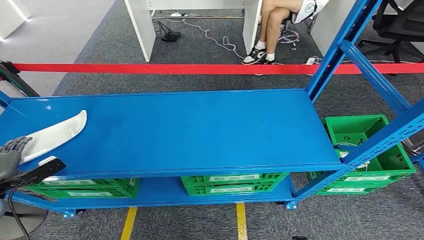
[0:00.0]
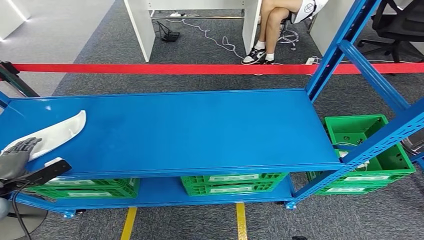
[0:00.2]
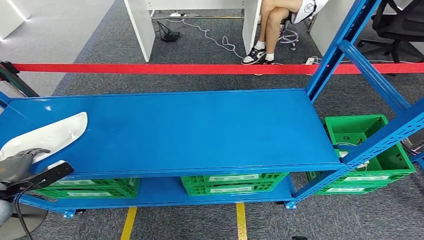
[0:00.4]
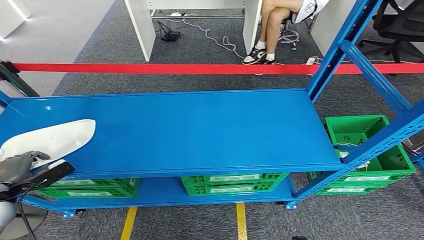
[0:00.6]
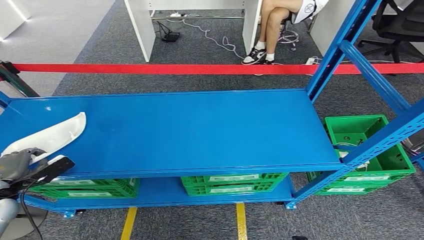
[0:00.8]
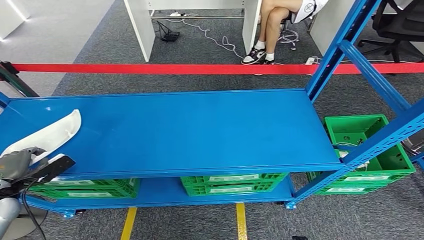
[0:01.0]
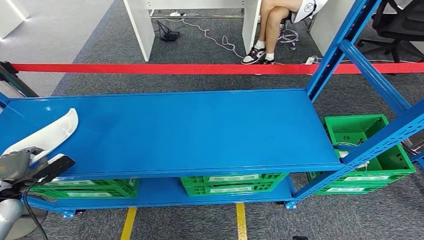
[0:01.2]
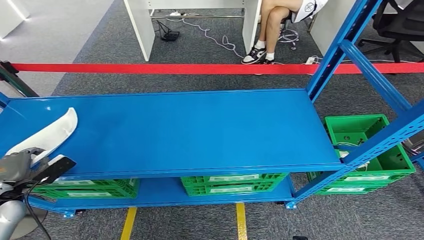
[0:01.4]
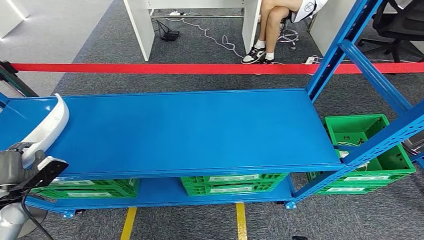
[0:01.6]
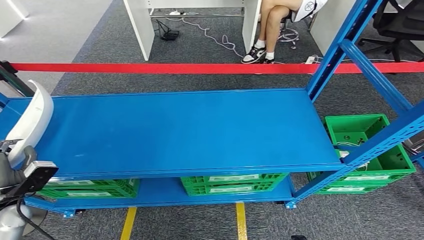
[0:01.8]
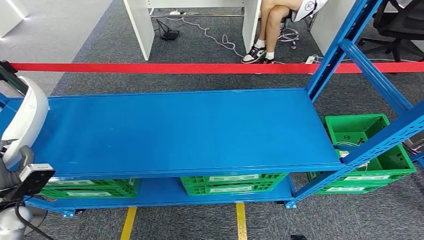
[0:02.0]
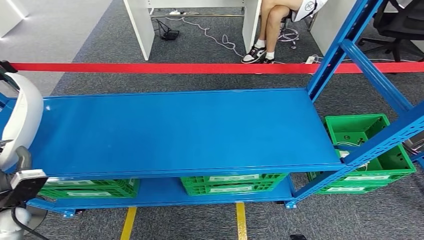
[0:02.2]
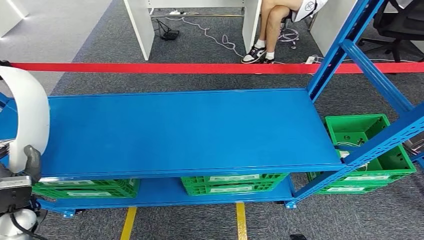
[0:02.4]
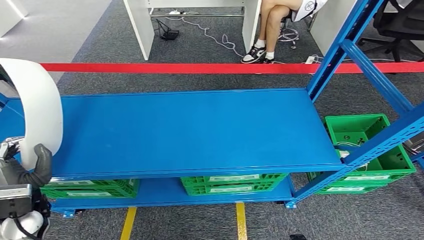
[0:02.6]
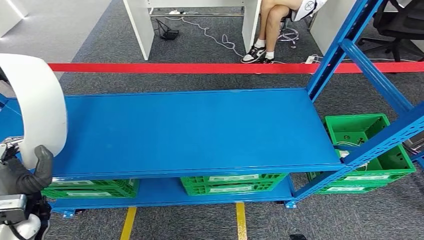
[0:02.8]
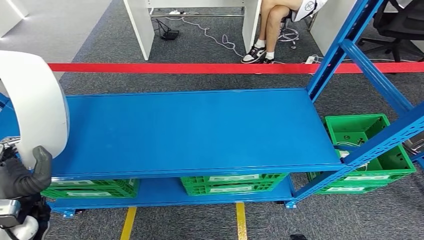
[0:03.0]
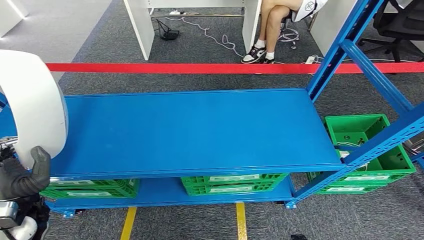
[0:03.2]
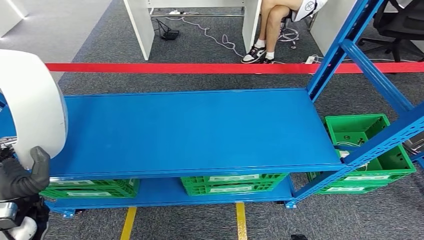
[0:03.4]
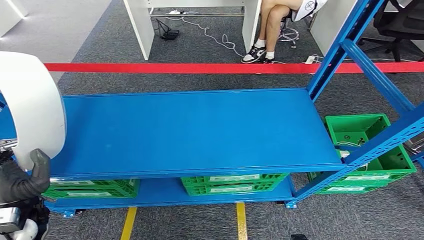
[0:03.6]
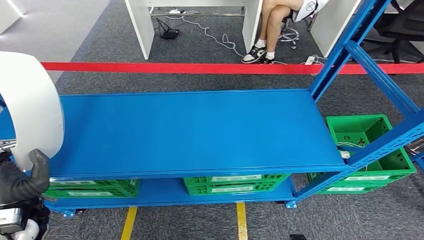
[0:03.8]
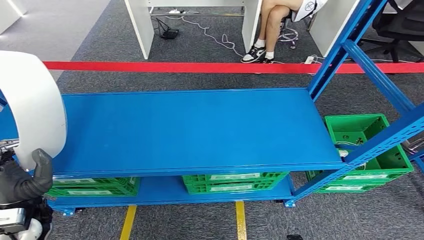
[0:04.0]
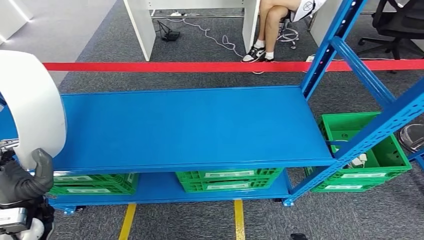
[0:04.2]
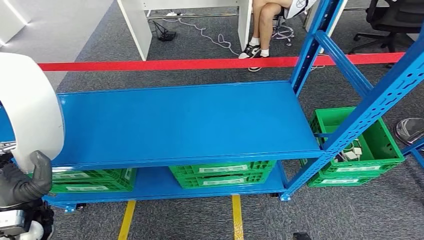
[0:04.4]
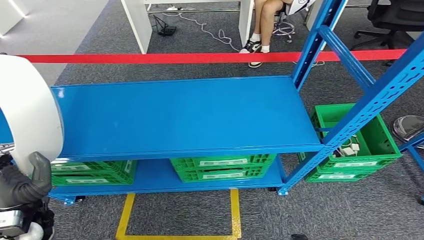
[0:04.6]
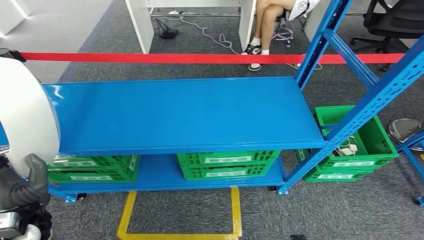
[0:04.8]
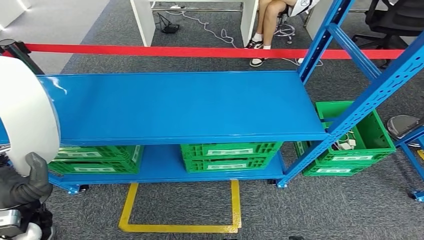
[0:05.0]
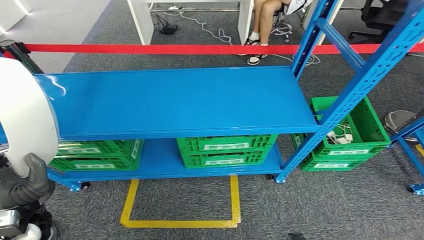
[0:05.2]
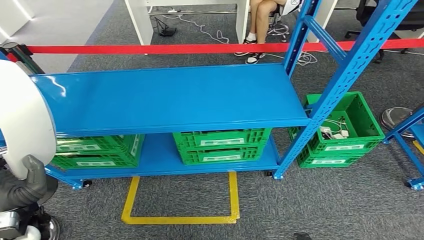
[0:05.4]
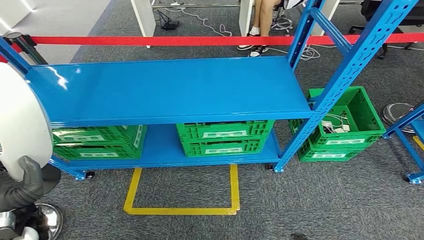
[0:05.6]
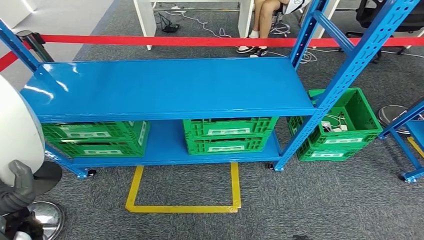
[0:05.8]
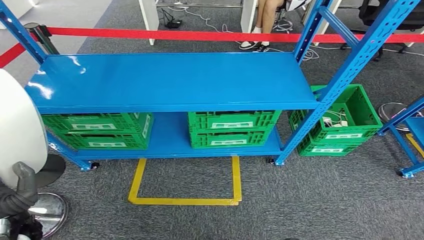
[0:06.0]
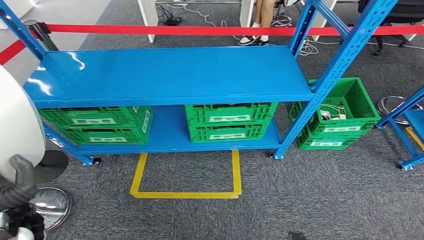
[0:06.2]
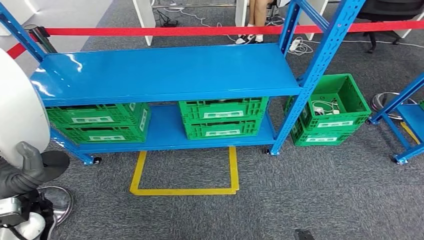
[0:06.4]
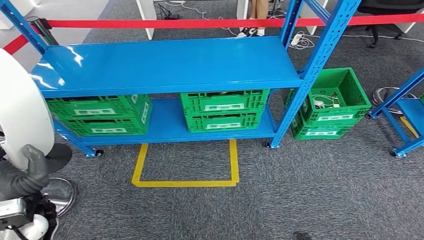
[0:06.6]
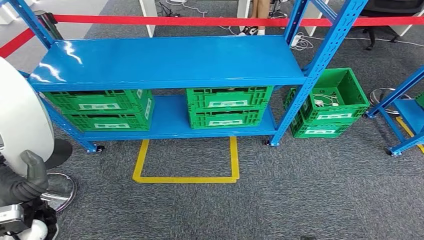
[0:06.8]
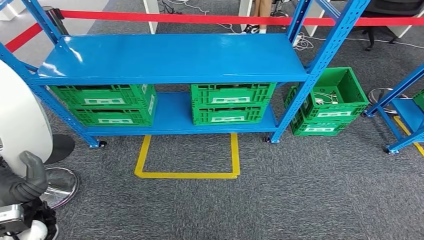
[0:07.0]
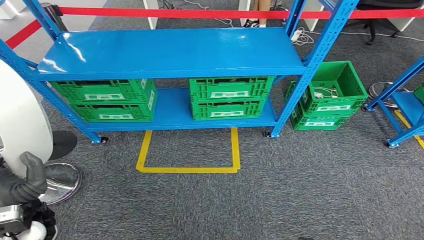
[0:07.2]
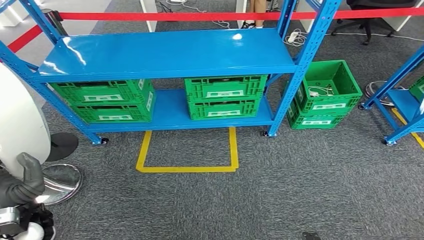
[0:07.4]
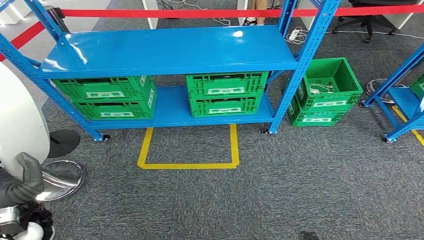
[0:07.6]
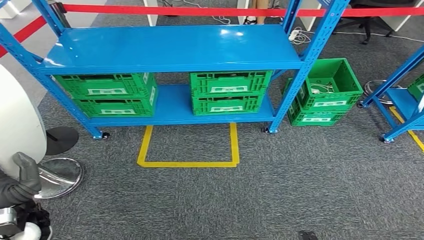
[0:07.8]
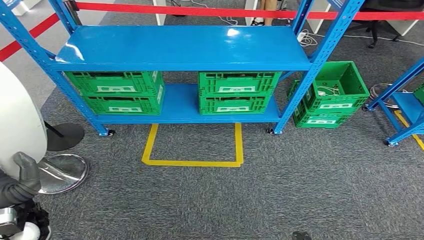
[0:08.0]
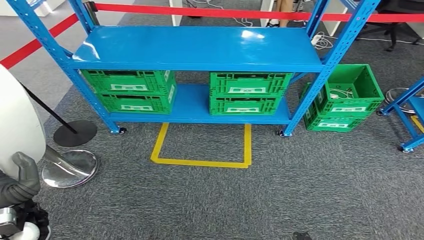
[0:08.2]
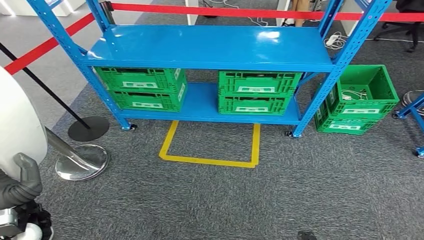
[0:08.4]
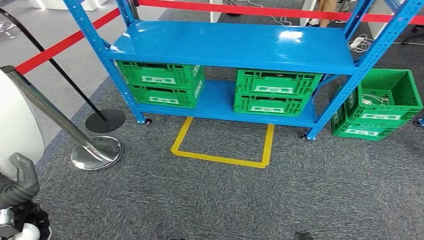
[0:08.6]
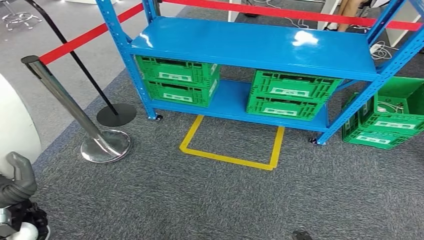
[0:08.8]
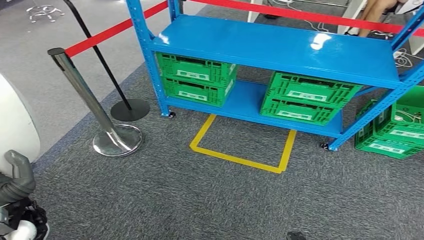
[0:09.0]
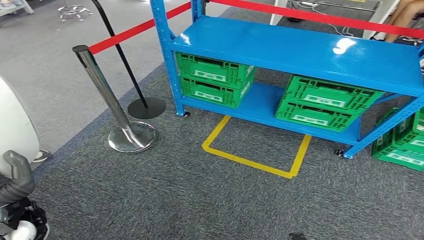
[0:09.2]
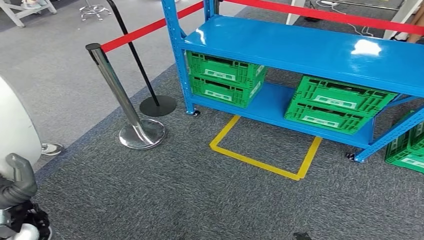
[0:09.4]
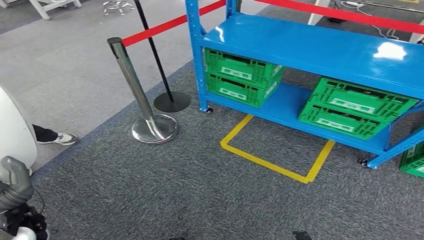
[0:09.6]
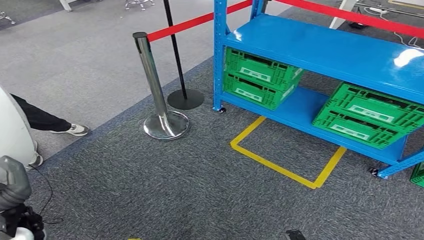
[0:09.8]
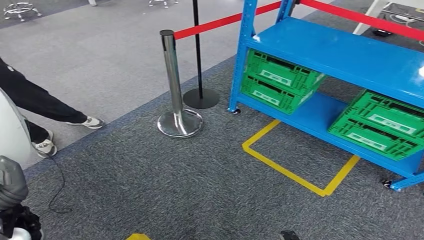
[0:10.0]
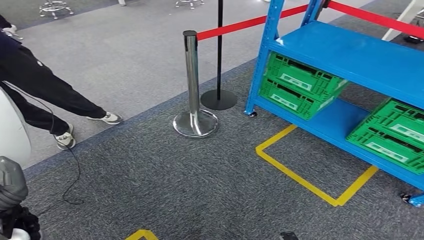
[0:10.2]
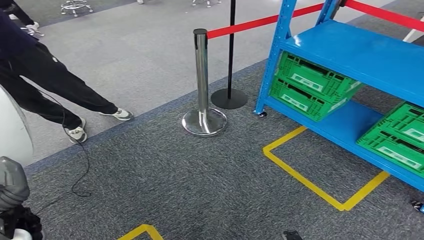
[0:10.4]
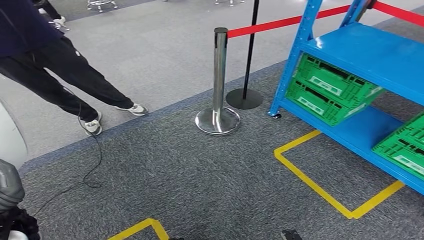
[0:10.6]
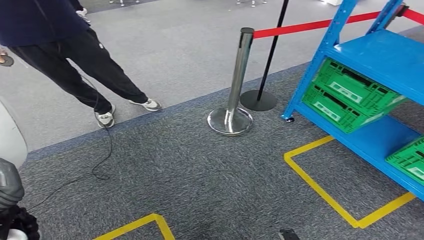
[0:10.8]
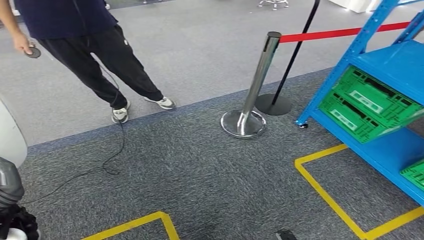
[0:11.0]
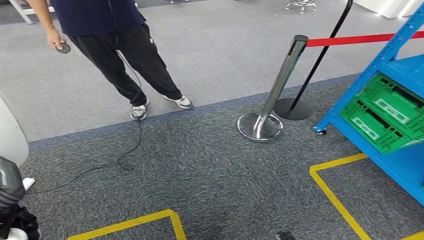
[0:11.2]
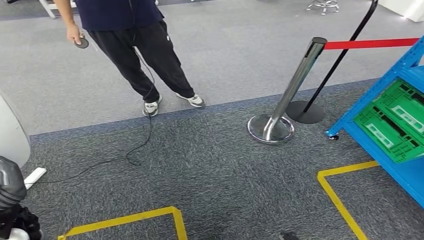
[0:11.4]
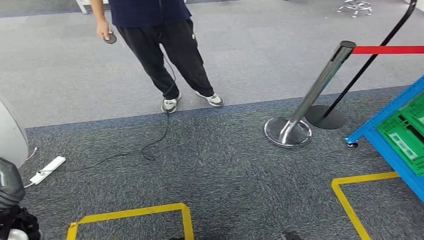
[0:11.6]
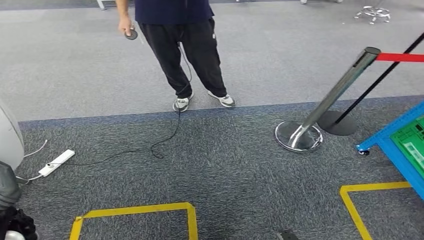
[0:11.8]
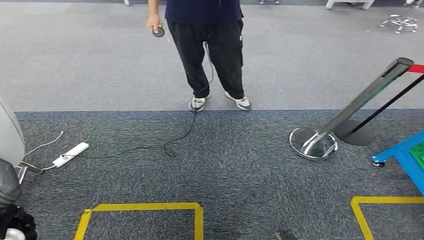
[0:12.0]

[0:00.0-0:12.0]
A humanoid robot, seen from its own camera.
Step, 0:00.0 to 0:04.8: Pick up the small parts from the shelf.
0:01.6 to 0:03.0: The left hand moves to the right and upward, roughly 15 cm.

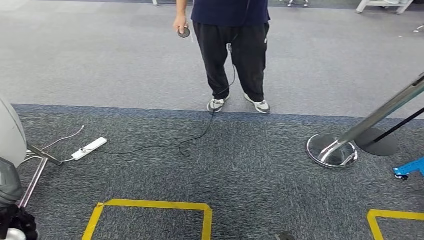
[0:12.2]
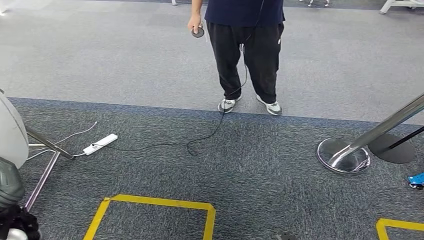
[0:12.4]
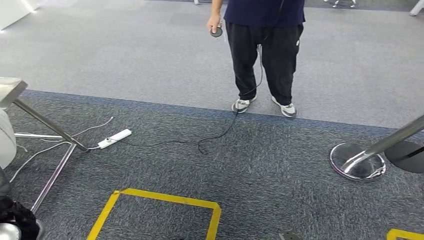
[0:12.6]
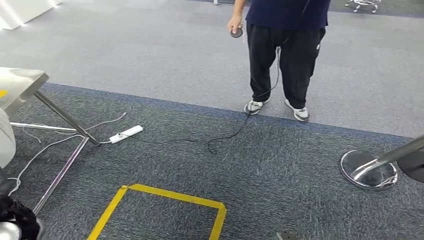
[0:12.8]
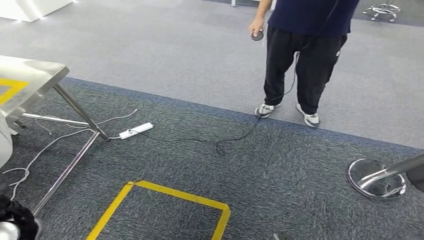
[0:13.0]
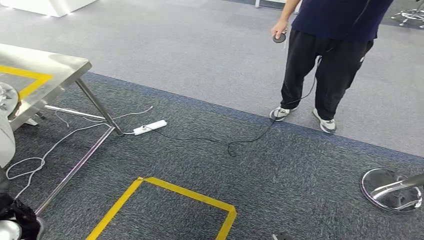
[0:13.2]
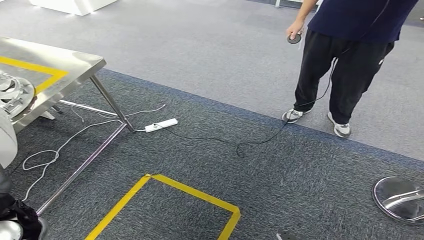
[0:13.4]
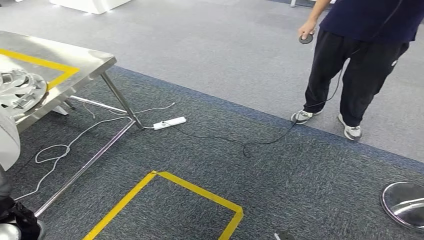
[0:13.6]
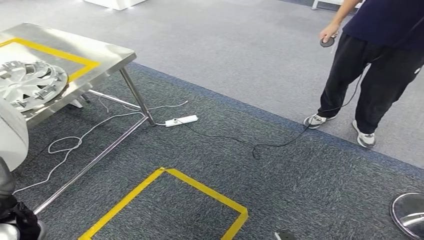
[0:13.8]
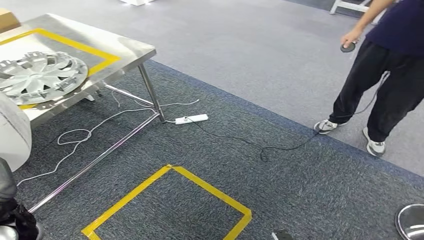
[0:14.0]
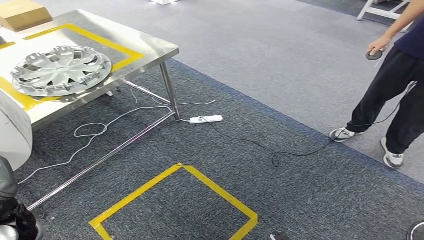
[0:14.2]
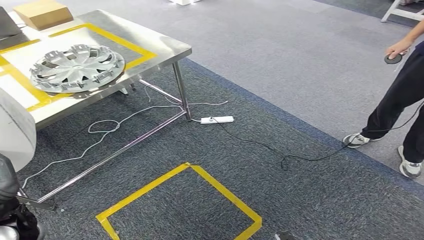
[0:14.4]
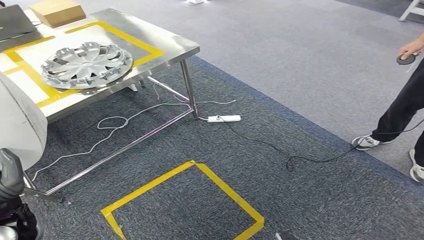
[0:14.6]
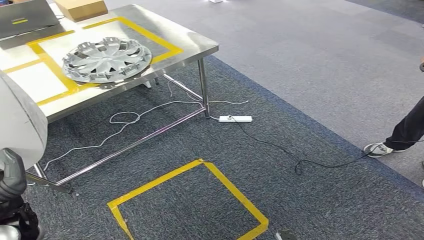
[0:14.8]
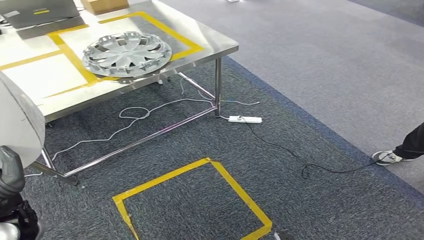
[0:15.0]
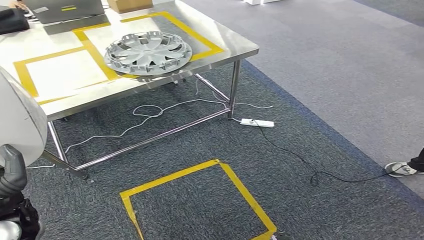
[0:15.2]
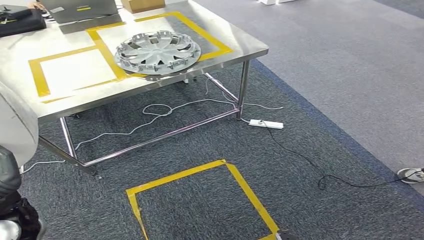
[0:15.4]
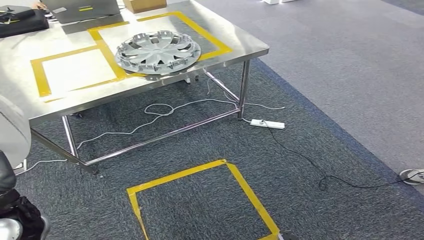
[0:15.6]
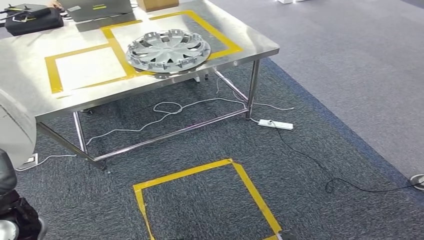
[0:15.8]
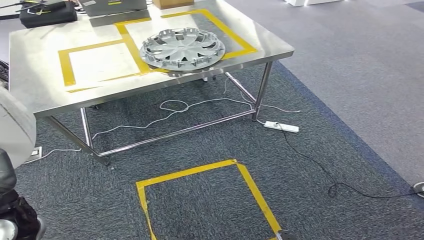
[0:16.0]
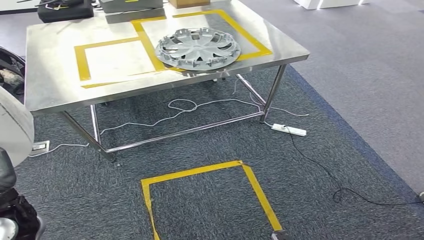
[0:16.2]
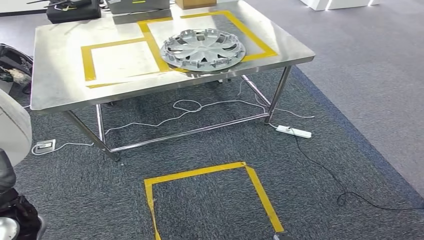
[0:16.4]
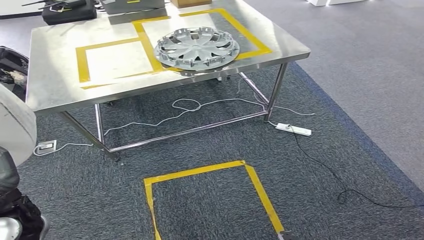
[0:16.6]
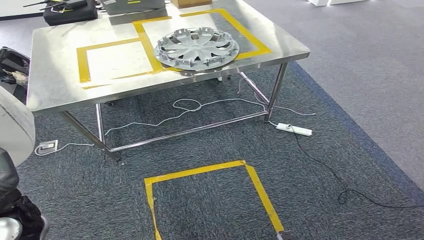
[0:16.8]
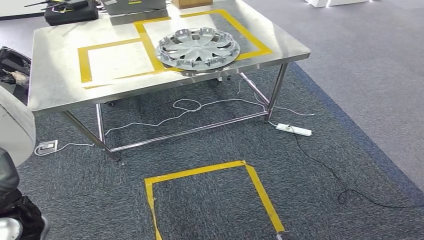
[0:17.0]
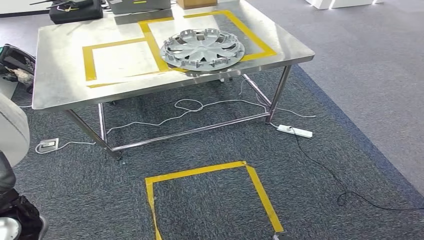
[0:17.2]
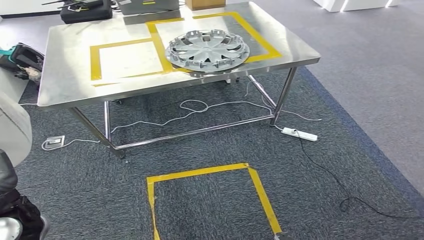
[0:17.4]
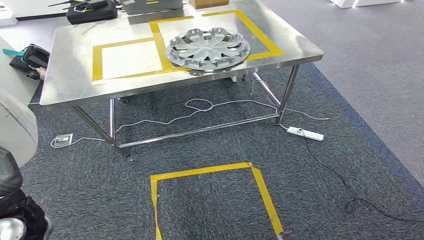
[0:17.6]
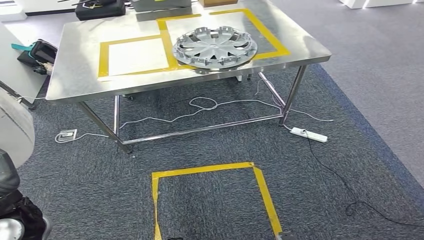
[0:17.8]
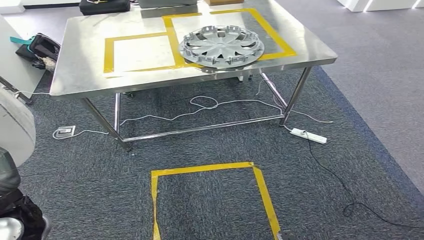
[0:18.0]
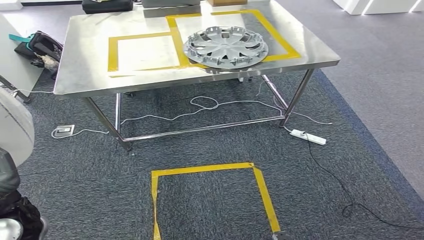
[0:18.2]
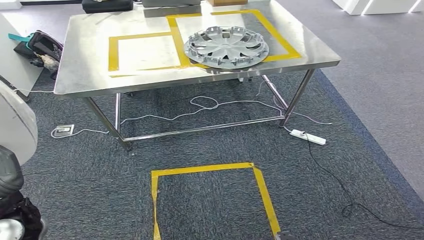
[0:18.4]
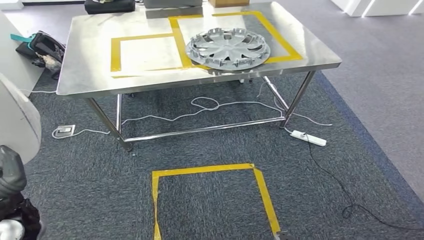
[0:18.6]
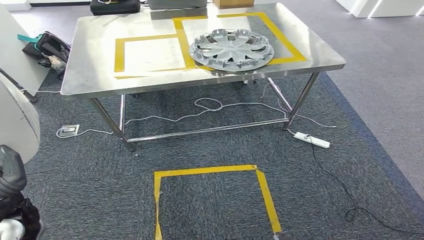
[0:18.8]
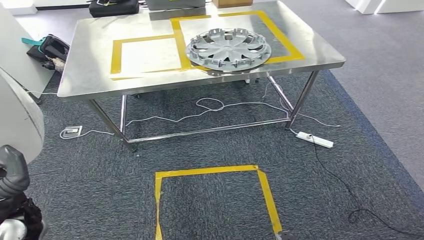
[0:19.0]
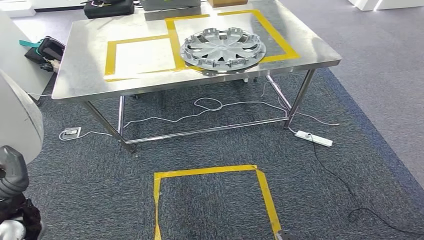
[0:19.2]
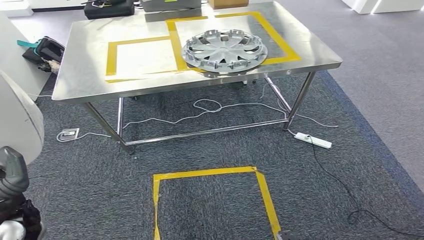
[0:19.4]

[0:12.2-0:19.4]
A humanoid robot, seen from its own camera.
Step, 0:12.2 to 0:17.6: Move the small parts to the workbench.
